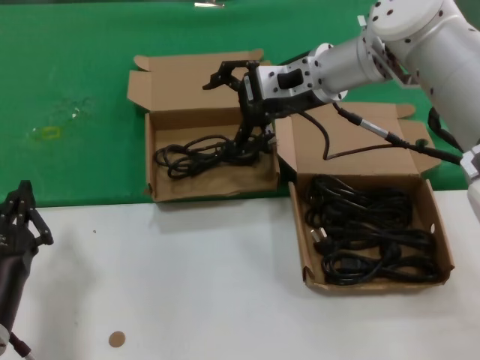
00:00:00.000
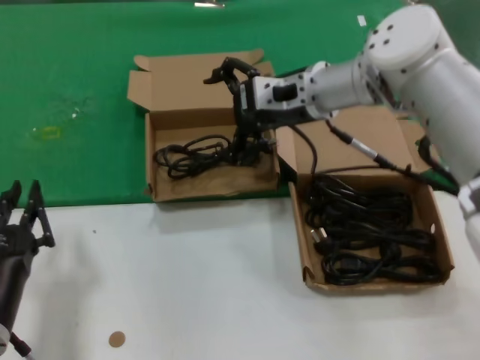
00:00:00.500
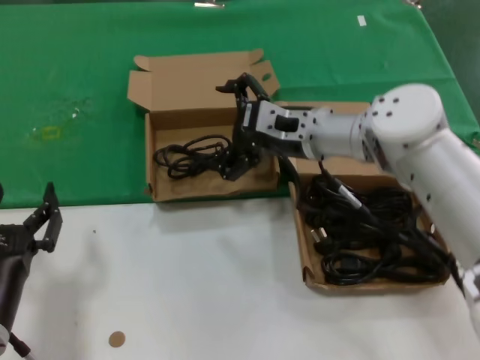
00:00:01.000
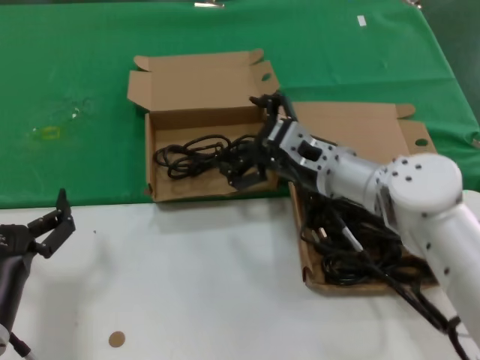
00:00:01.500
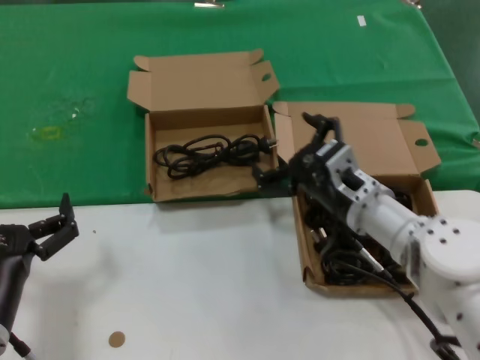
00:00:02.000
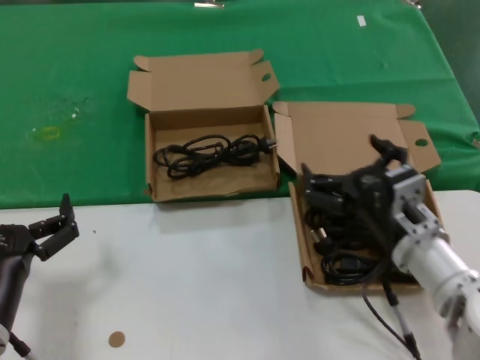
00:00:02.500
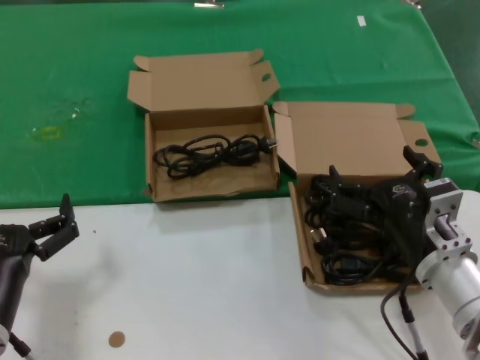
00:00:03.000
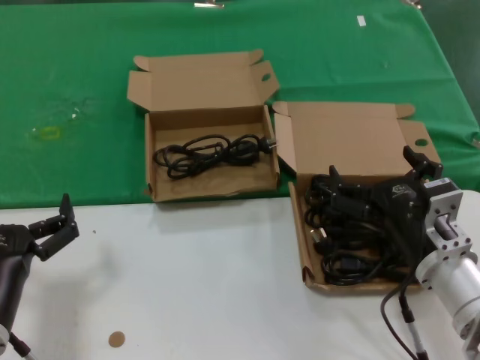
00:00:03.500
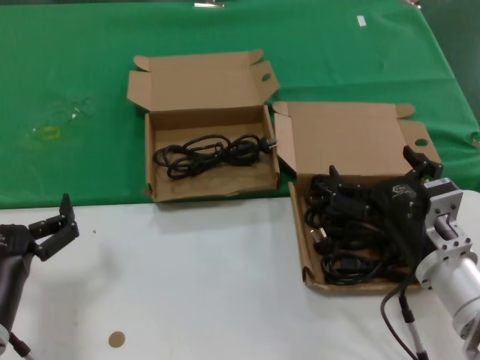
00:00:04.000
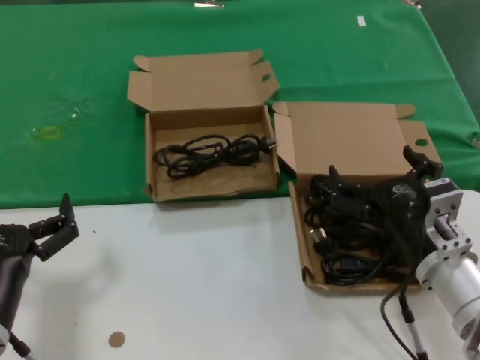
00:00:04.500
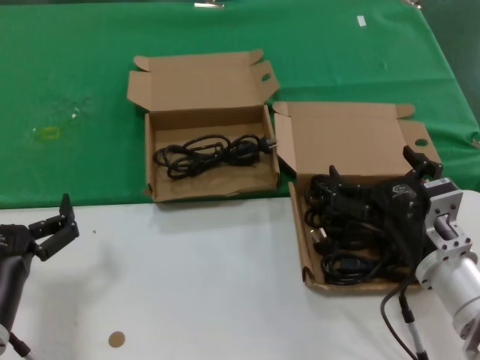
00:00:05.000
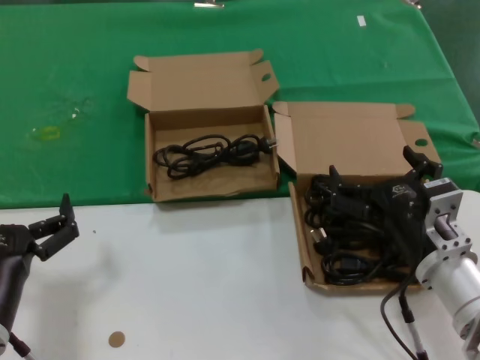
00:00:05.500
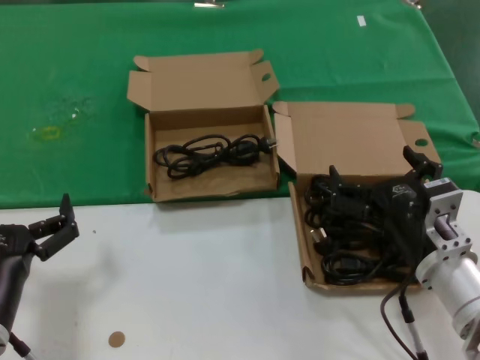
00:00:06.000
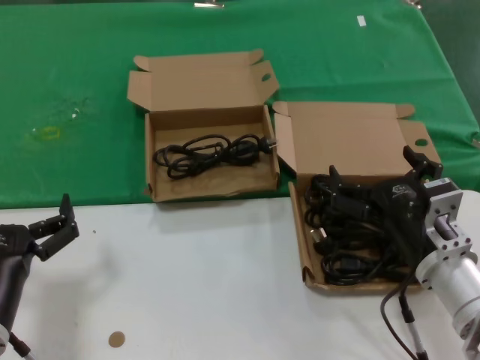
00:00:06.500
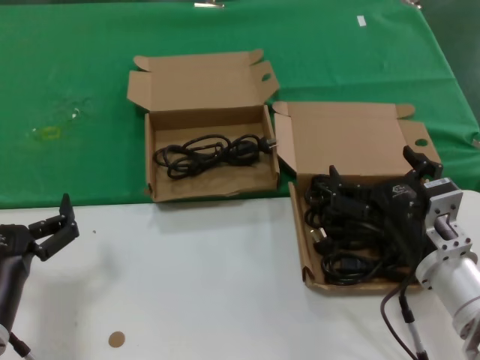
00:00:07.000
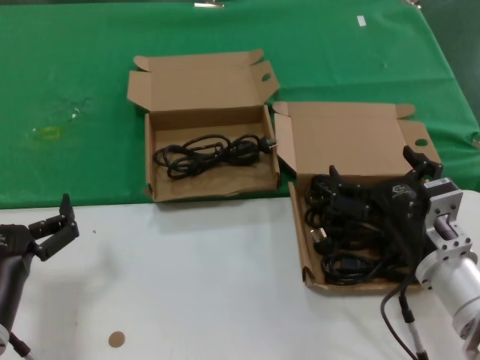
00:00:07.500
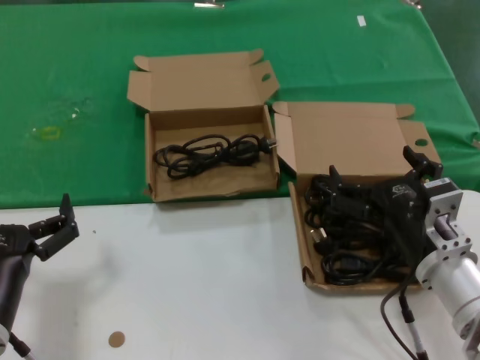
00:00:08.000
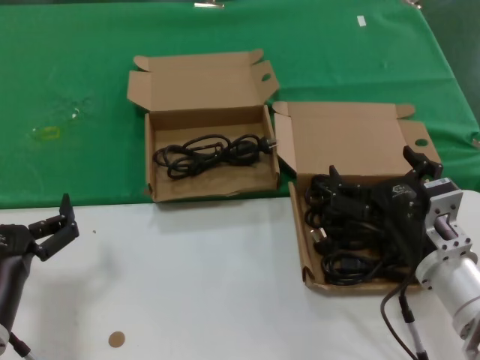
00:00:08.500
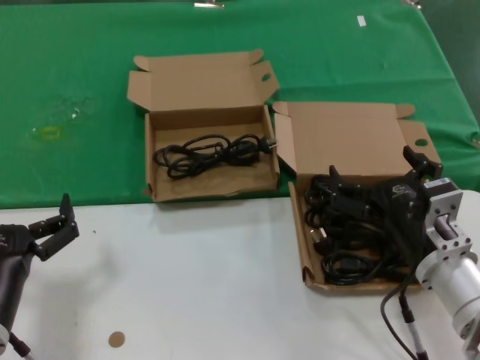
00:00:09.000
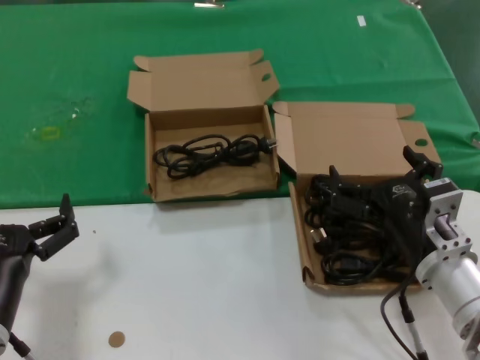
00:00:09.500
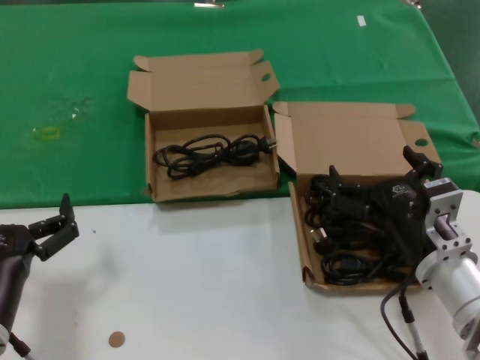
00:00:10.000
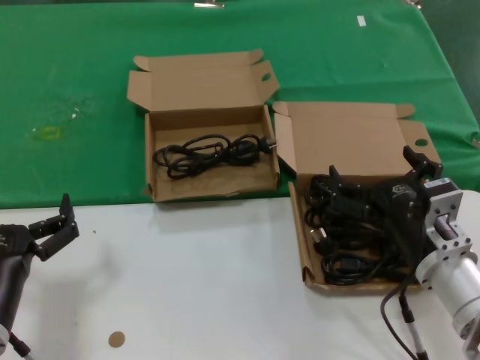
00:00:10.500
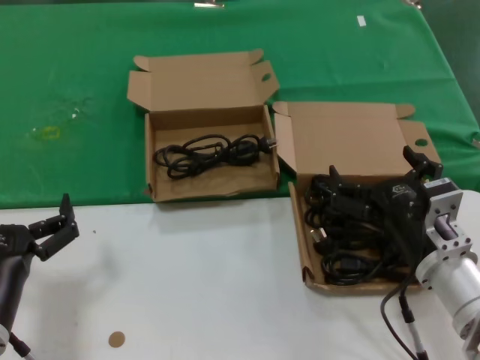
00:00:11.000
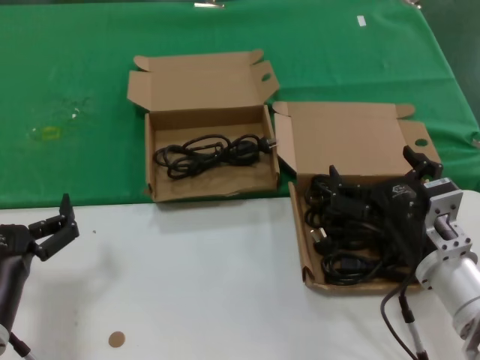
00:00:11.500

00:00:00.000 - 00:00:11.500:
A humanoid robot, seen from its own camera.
Task of the whole recording: take the parts from the box containing them and put them into an empty box.
00:00:00.000 - 00:00:02.000: The right hand moves downward and backward, about 25 cm.
00:00:02.000 - 00:00:04.000: The right hand travels backward by approximately 10 cm.
00:00:04.000 - 00:00:11.500: Both hands stay put.

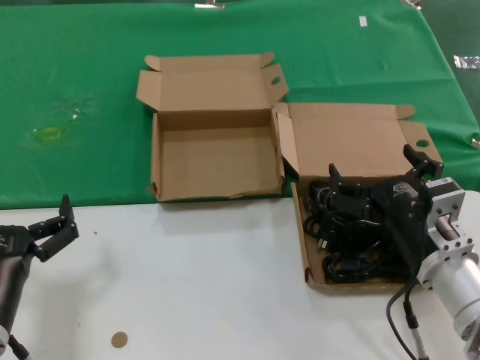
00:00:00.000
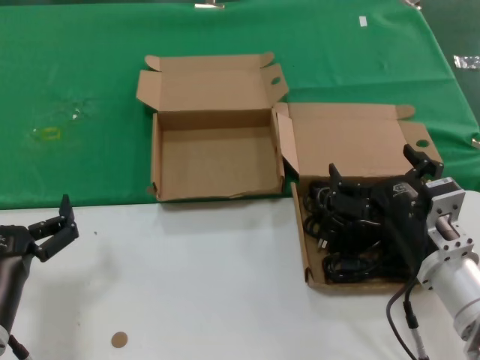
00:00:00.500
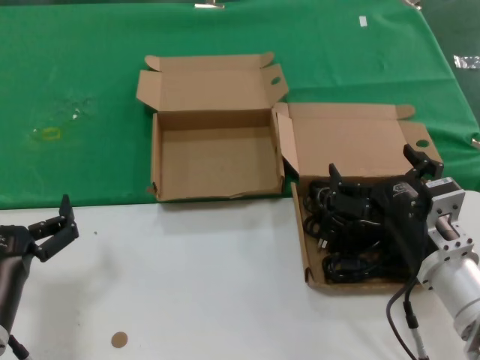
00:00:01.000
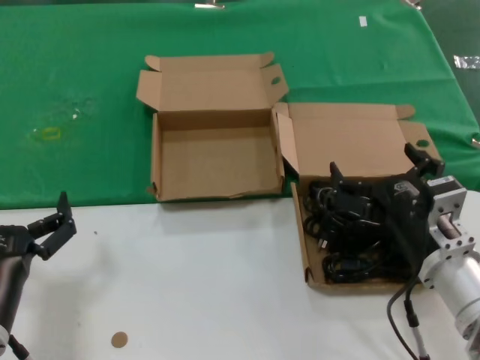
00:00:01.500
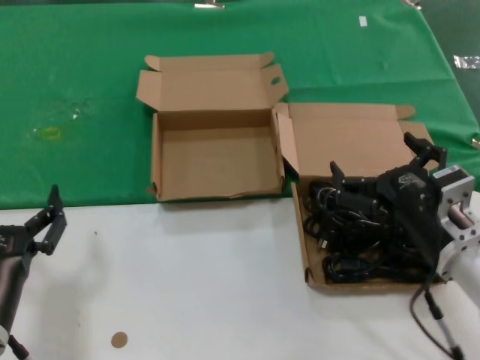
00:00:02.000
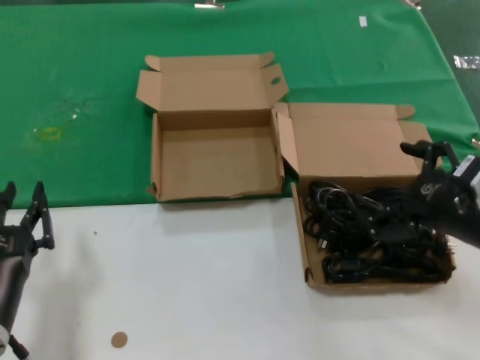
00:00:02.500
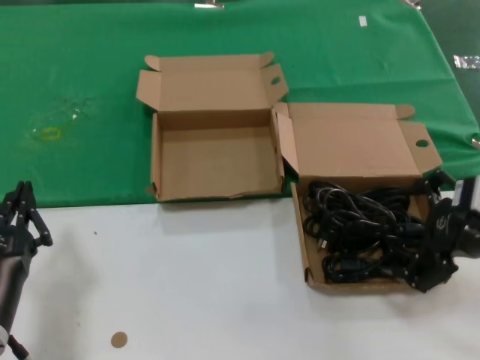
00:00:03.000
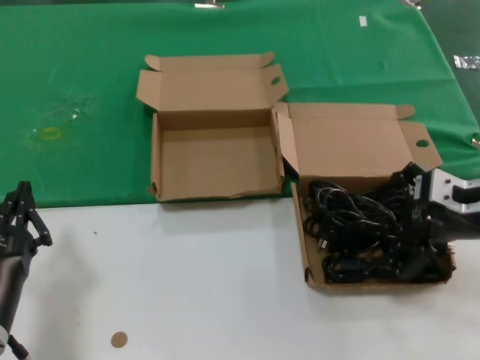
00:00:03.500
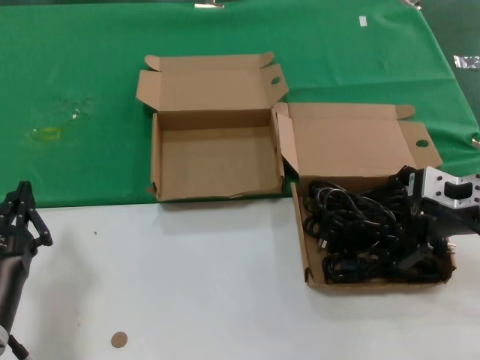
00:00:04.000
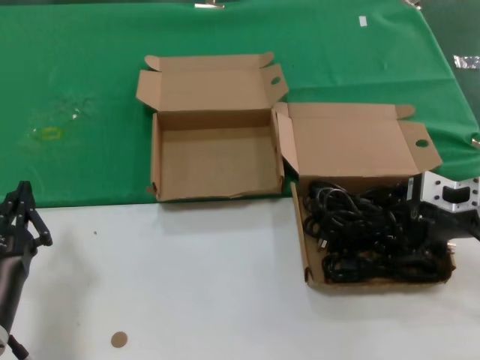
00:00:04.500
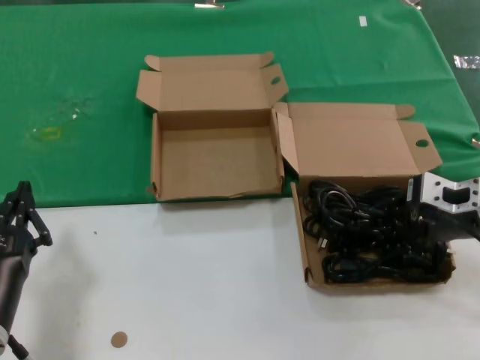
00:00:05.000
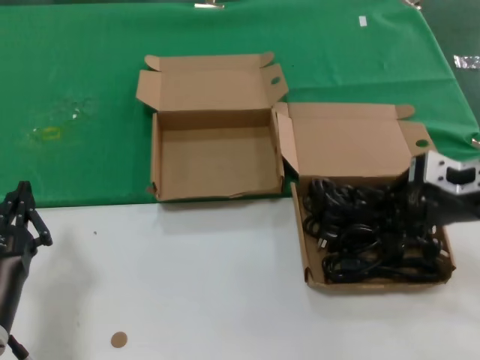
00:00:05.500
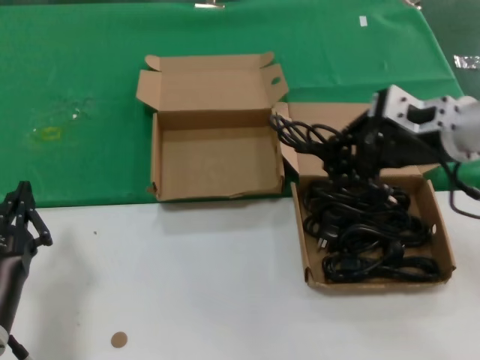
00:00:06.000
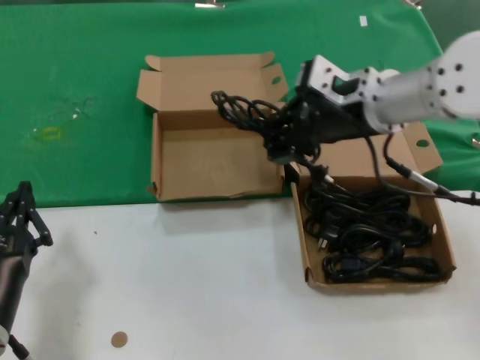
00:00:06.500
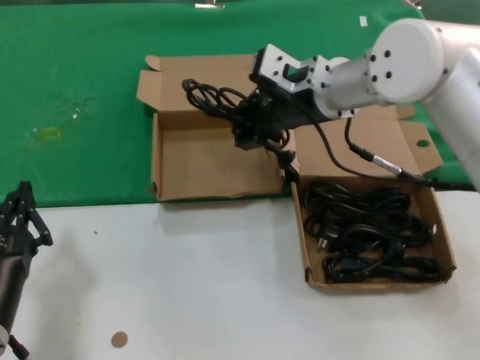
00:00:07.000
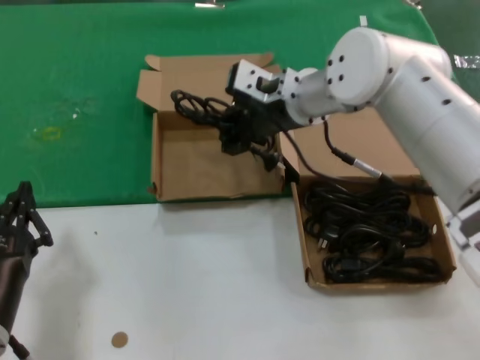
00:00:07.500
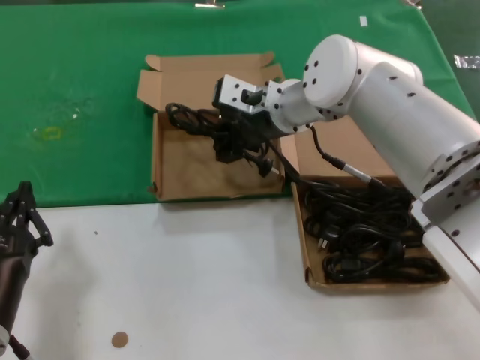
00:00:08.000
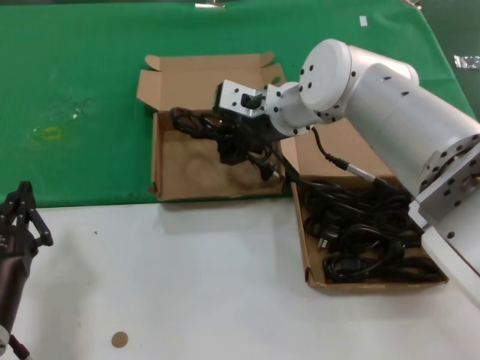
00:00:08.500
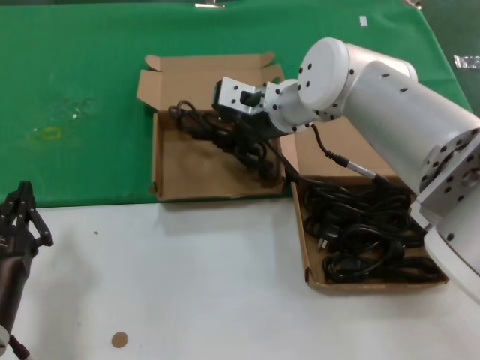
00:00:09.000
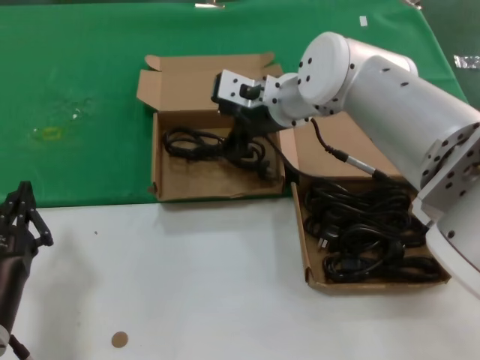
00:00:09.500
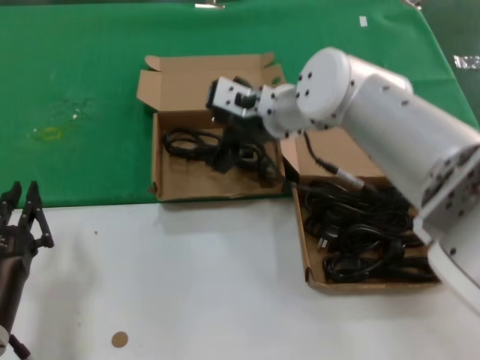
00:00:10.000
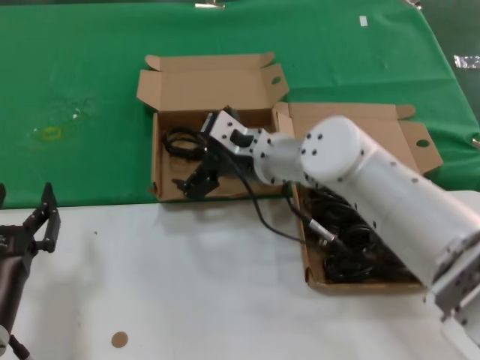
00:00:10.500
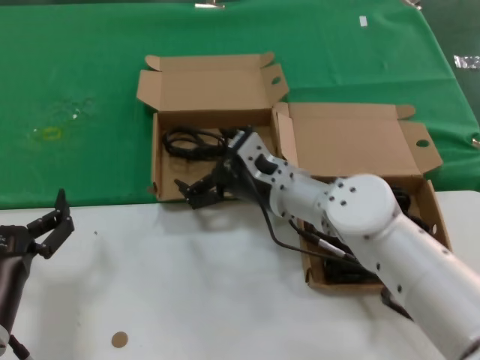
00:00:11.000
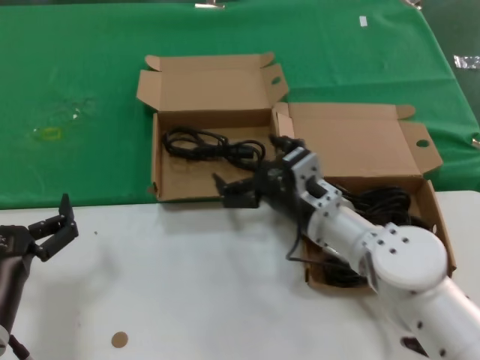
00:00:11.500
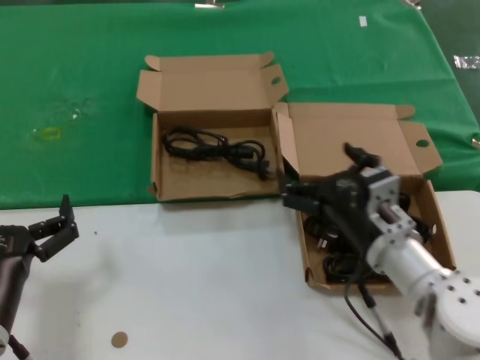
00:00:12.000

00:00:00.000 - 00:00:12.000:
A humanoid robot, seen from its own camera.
Task of the whole recording: take the parts from the box containing them and put them into an empty box.
Step, 00:00:00.000 - 00:00:04.500: Grasp the data cable.
Step, 00:00:05.000 - 00:00:10.000: Place the data cable in the another box.
00:00:00.000 - 00:00:02.000: The hands move only a little.
00:00:02.000 - 00:00:04.000: The right hand travels upward, forward and to the right by roughly 15 cm.
00:00:04.000 - 00:00:06.000: The right hand is displaced upward by approximately 5 cm.
00:00:06.000 - 00:00:08.000: The right hand travels to the left and forward by roughly 25 cm.
00:00:08.000 - 00:00:10.000: The hands stay close to where they were, moving slightly.
00:00:10.000 - 00:00:12.000: The right hand heads backward, downward and to the right, covering some 25 cm.

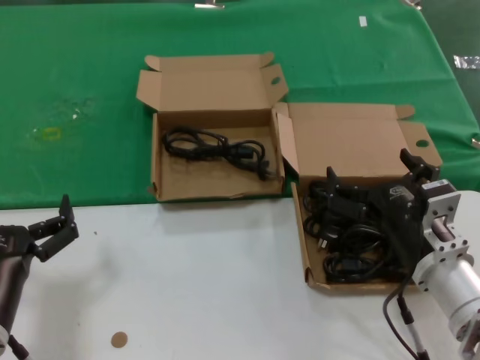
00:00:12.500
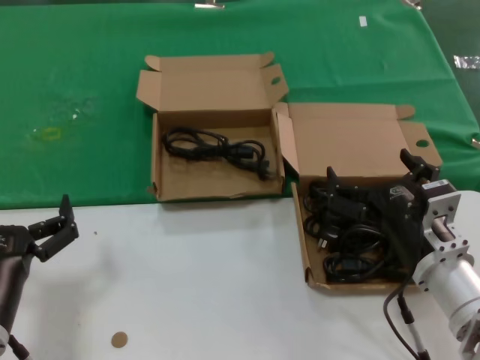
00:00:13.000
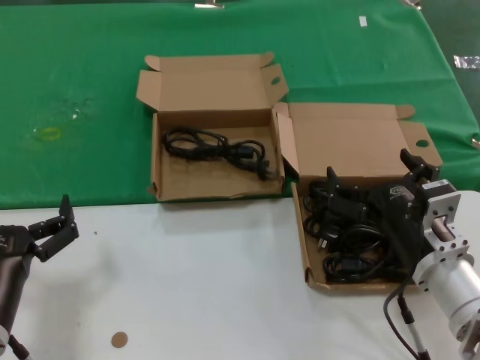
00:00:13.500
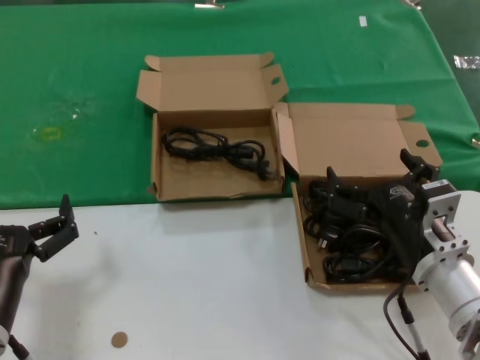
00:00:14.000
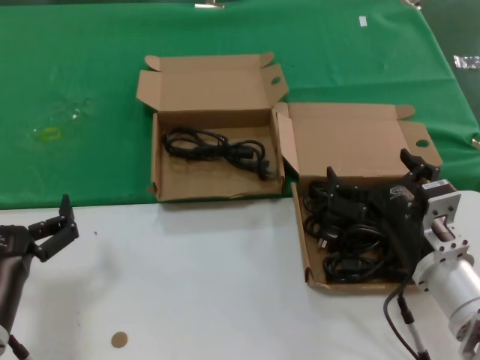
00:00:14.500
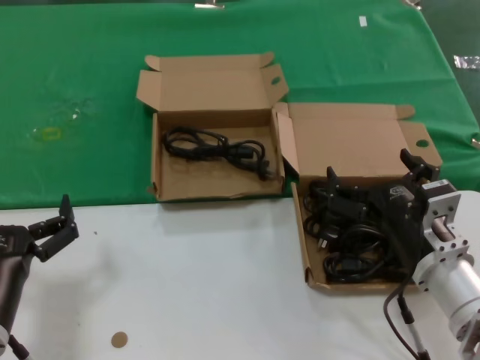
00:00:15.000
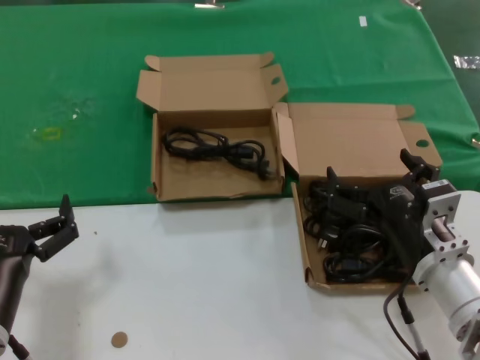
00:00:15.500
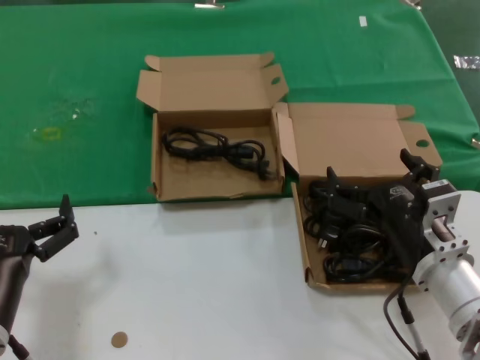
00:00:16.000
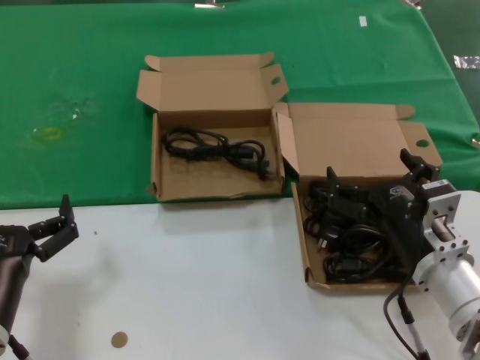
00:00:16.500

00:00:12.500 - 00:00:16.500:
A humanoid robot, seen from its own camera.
Task of the whole recording: take the parts from the box containing them and put them into an empty box.
00:00:12.500 - 00:00:16.500: Both hands stay about where they are.
